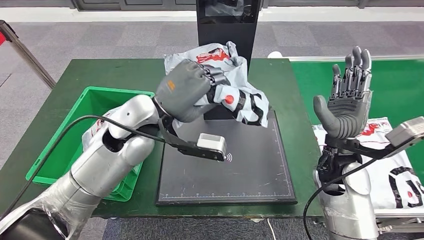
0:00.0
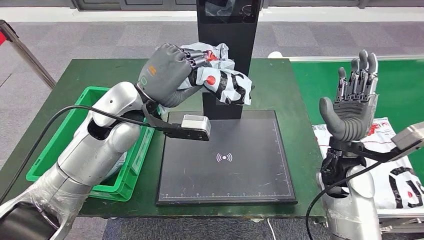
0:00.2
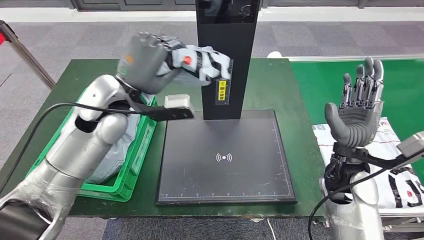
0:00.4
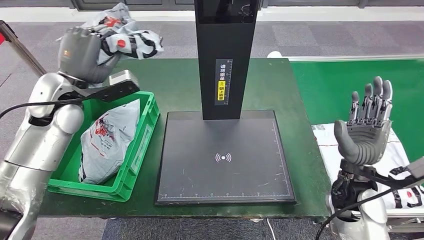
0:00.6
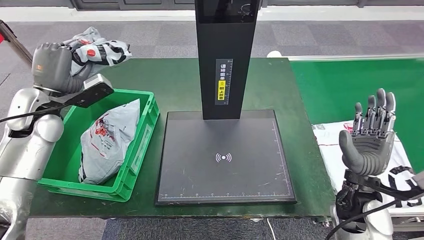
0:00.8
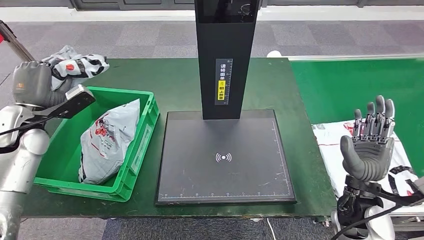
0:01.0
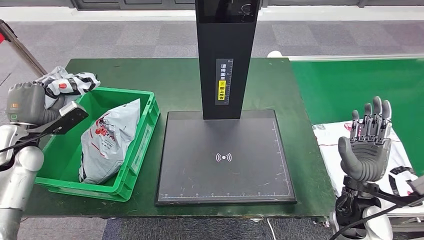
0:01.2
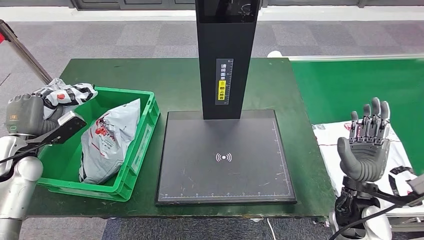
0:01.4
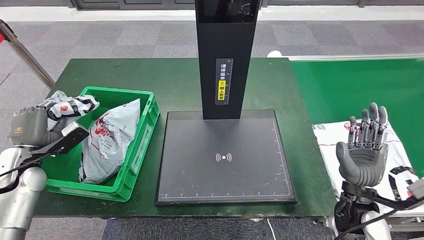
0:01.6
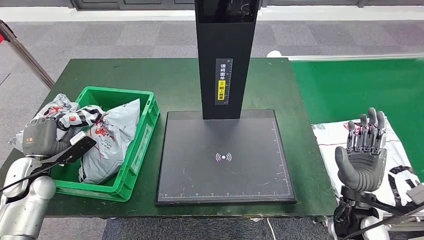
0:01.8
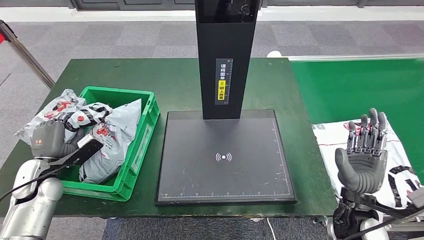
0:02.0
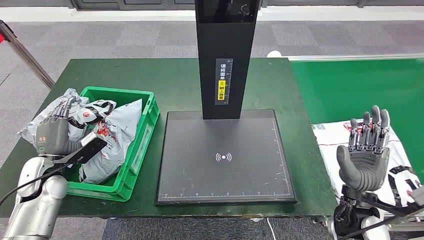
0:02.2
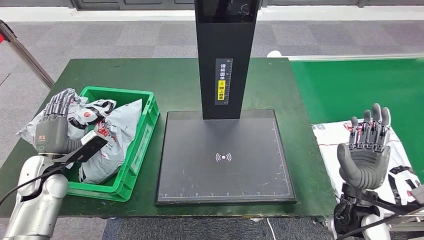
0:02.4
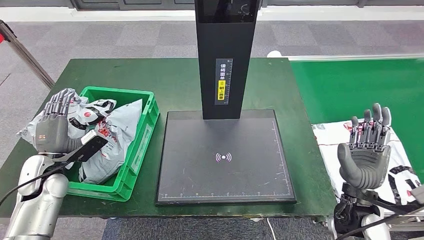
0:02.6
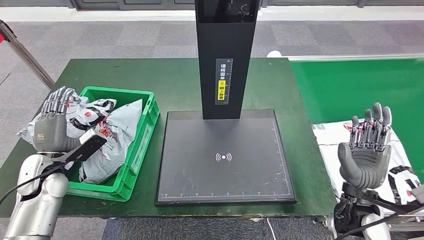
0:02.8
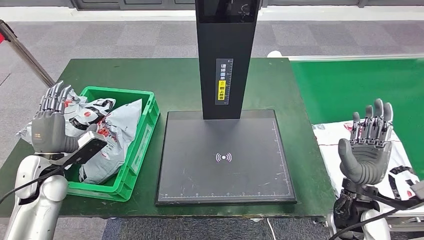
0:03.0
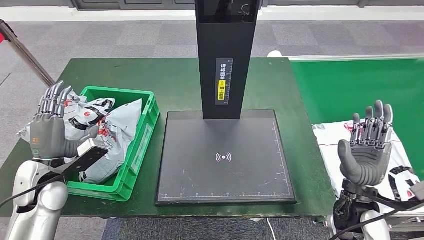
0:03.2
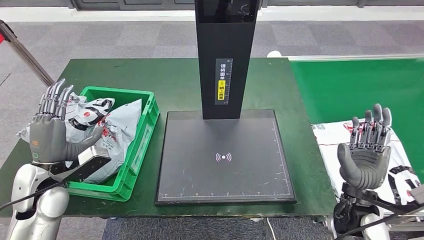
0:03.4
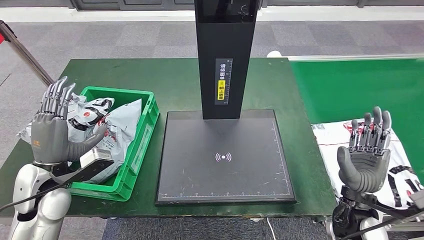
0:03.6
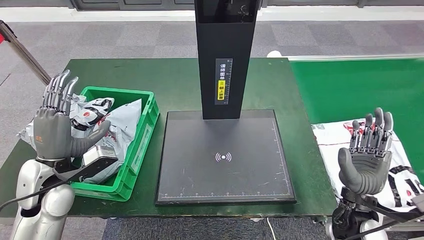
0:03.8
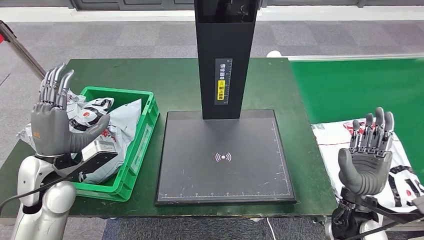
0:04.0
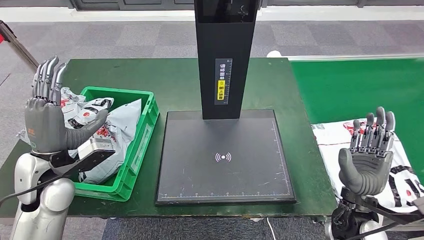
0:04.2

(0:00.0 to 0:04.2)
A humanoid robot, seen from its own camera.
Step, 0:00.2 - 0:04.2: Place the parcel into the delivery box.
0:01.4 - 0:02.8: The left hand goes approximately 5 cm to the right.
0:02.8 - 0:04.2: The left hand travels upward and to the right by roughly 10 cm.
